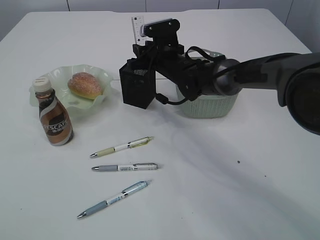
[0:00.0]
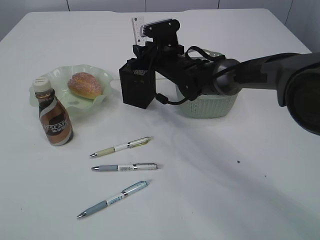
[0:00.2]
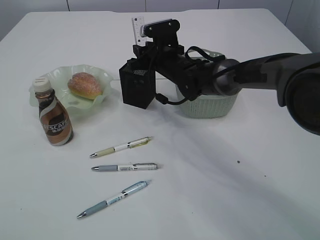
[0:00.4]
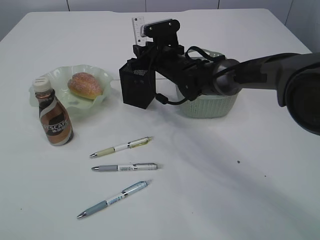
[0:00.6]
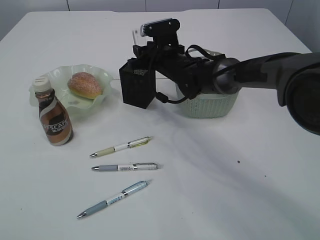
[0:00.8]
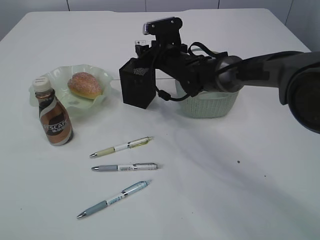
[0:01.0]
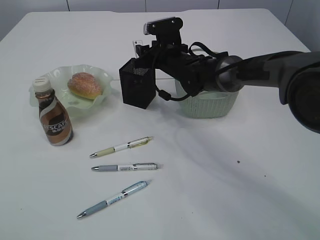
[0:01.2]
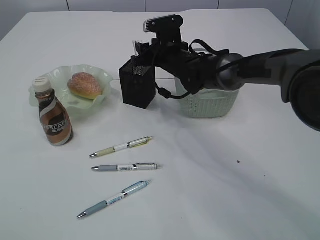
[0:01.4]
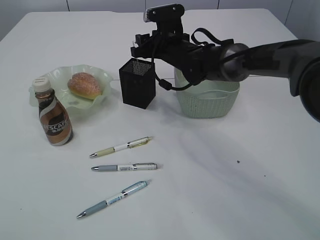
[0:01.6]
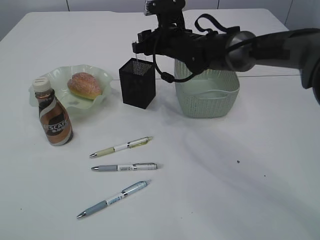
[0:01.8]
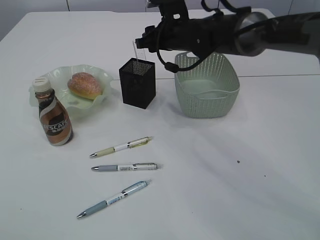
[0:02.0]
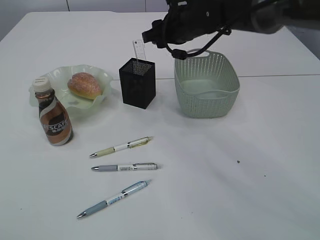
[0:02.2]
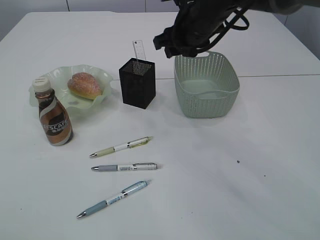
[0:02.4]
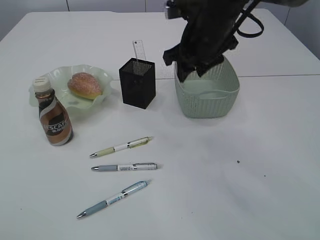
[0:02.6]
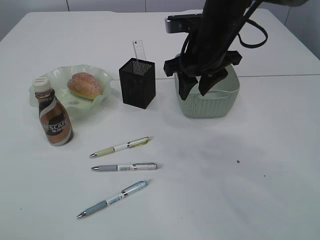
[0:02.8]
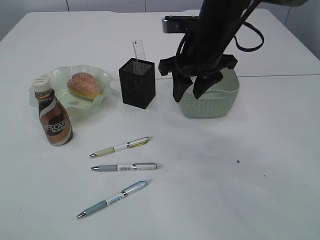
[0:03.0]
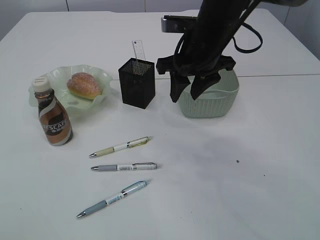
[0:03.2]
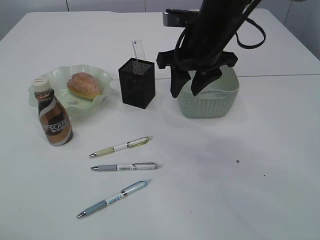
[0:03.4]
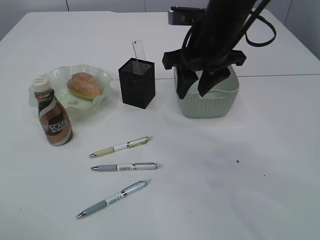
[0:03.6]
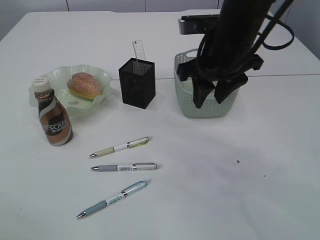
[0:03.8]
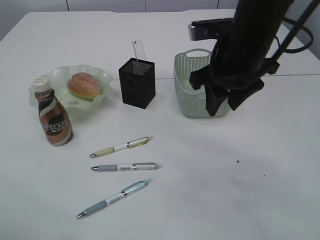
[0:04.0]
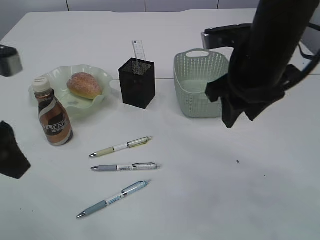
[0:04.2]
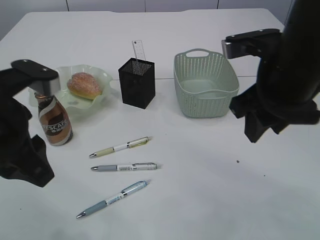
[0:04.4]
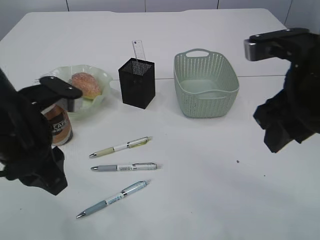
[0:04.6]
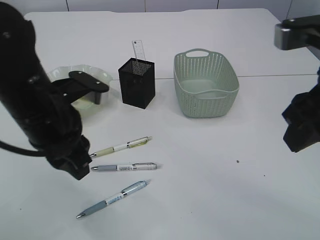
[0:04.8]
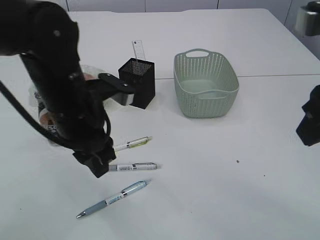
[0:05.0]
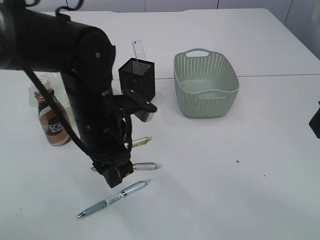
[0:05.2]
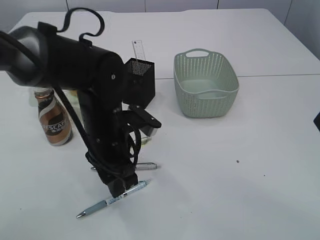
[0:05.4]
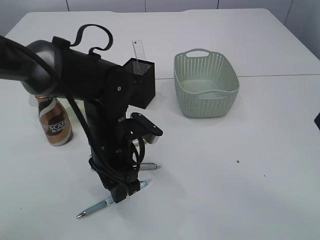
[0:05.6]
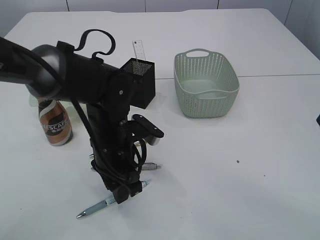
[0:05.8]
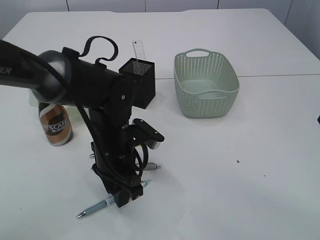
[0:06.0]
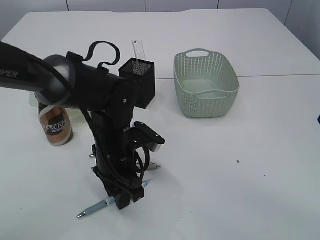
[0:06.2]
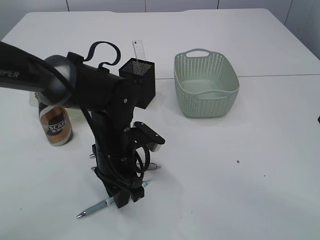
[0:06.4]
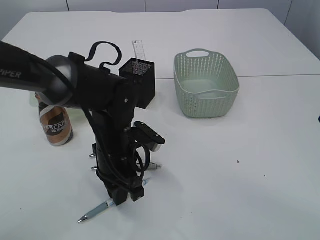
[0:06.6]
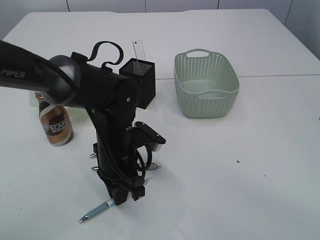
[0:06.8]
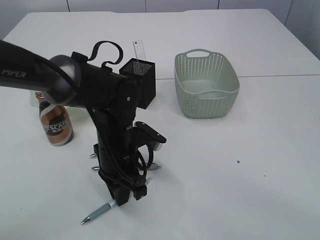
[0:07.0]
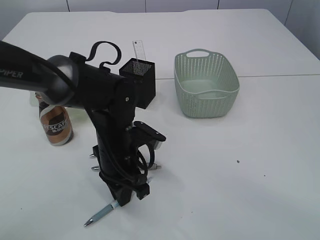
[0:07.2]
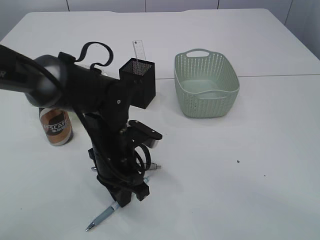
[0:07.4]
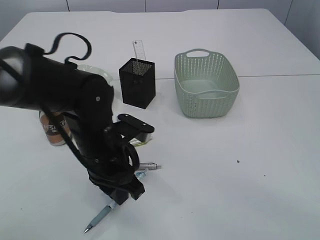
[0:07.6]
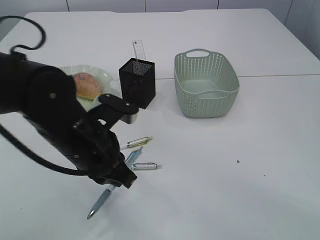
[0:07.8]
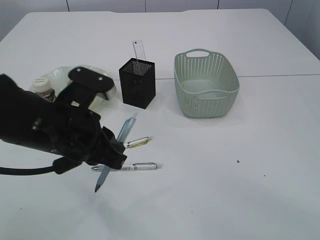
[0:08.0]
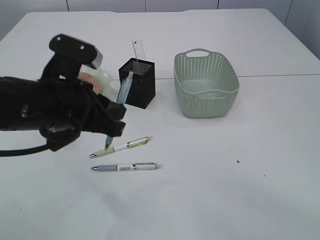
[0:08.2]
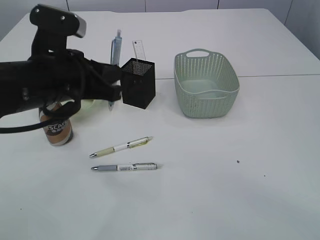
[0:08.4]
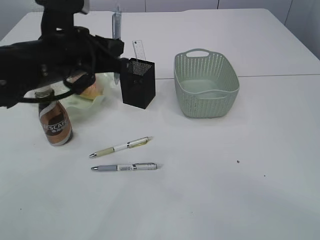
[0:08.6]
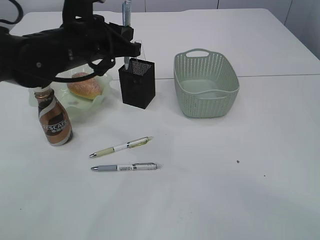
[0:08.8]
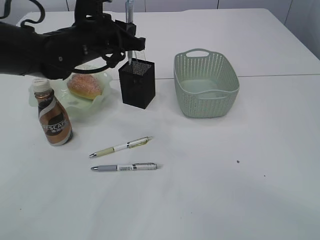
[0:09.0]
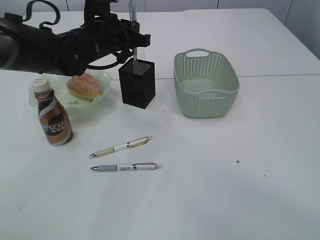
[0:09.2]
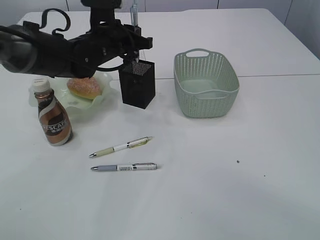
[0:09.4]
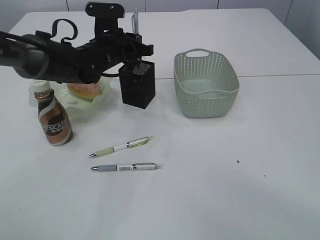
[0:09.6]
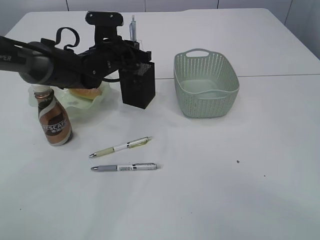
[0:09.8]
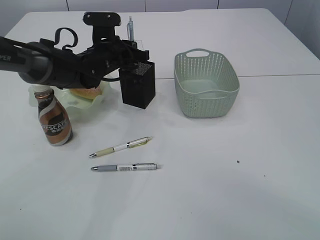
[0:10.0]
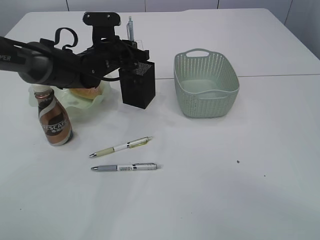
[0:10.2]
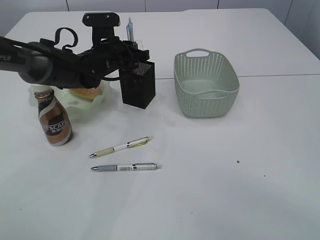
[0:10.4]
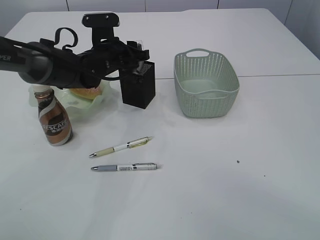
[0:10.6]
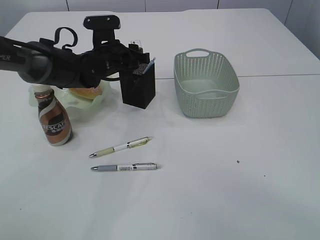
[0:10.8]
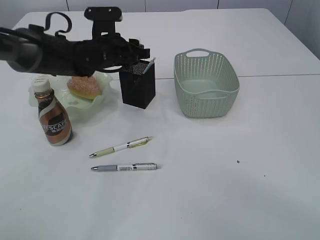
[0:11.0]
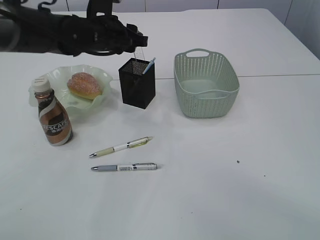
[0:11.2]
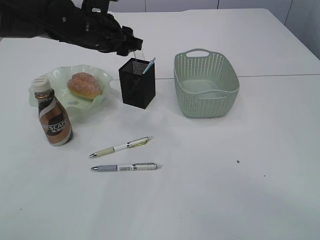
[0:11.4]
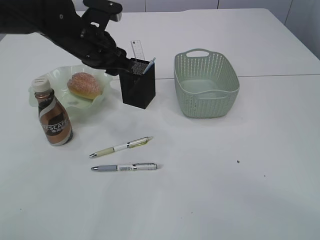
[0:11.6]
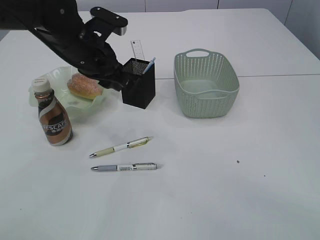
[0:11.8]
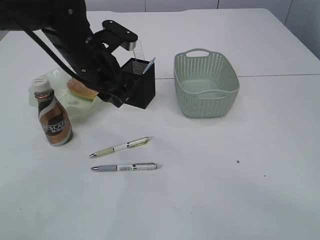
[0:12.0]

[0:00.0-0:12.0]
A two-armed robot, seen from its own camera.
Step, 0:00.0 to 0:02.0: Place the ruler into the pen holder.
Step, 0:02.2 to 0:07.8: Pick up the pen with left arm.
Step, 0:08.0 to 0:11.2: Place the pen into the pen holder.
0:00.0 to 0:01.6: There are only small adjustments of the grippers.
0:01.6 to 0:03.0: The right gripper is displaced backward and upward by about 15 cm.
0:03.0 to 0:04.4: The left gripper travels to the right, downward and forward by roughly 15 cm, while the right gripper goes some 15 cm backward and to the right.
0:04.4 to 0:06.0: The left gripper goes approximately 20 cm downward, to the right and forward, while the right gripper goes some 15 cm backward, upward and to the right.
0:06.0 to 0:07.6: The left gripper closes.
0:07.6 to 0:09.0: The left gripper travels forward and upward by roughly 15 cm.
0:09.0 to 0:10.4: The left gripper goes roughly 10 cm forward and downward.
0:10.4 to 0:12.0: The left gripper shifts roughly 10 cm backward and upward.

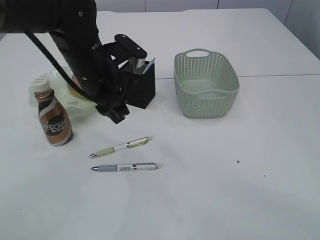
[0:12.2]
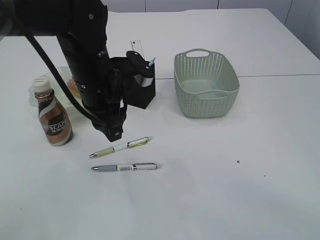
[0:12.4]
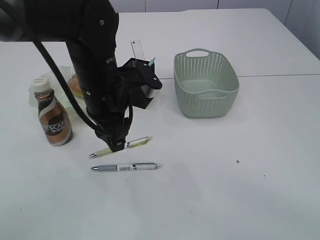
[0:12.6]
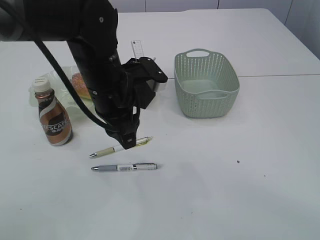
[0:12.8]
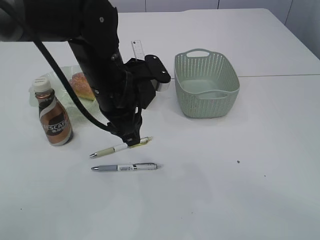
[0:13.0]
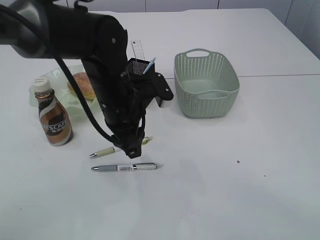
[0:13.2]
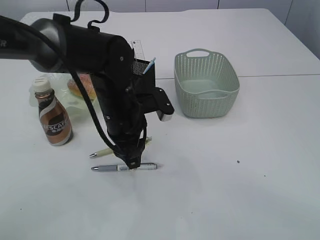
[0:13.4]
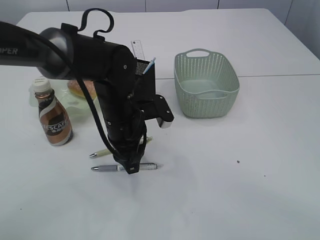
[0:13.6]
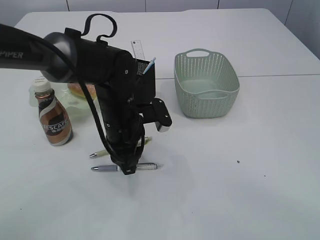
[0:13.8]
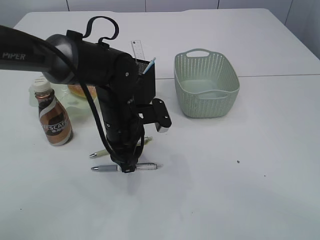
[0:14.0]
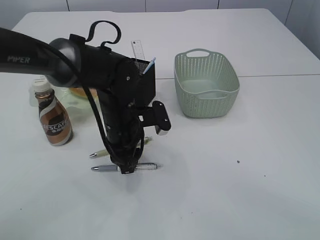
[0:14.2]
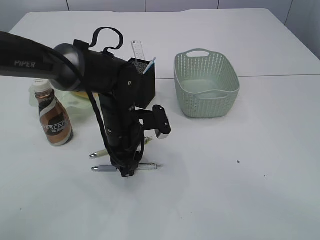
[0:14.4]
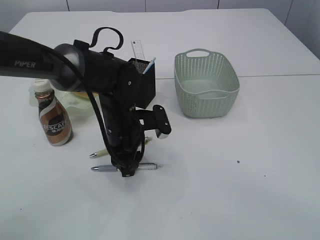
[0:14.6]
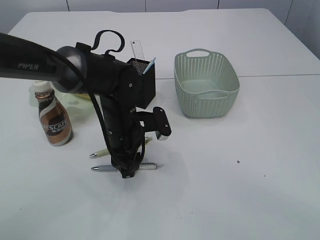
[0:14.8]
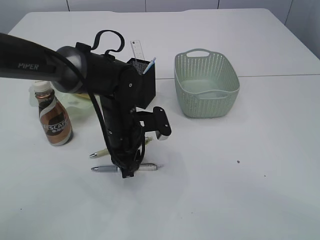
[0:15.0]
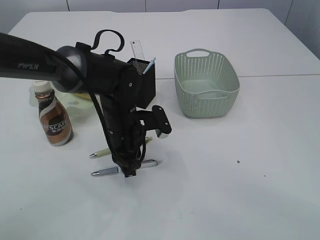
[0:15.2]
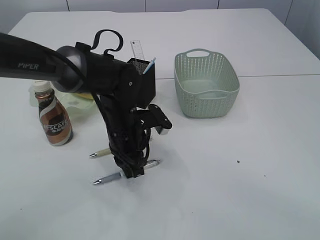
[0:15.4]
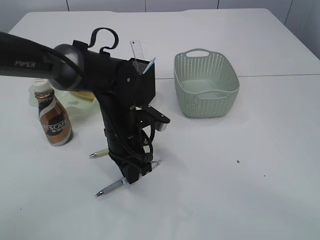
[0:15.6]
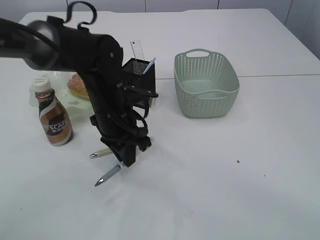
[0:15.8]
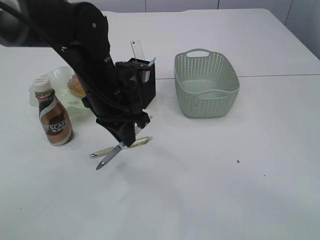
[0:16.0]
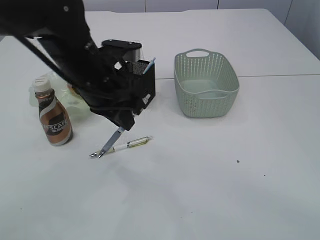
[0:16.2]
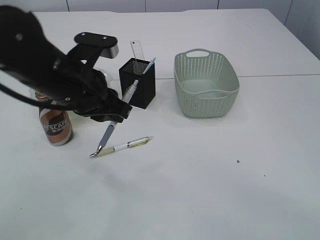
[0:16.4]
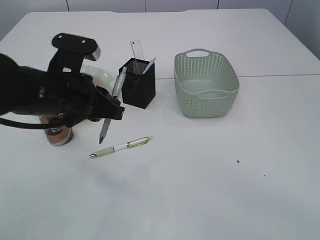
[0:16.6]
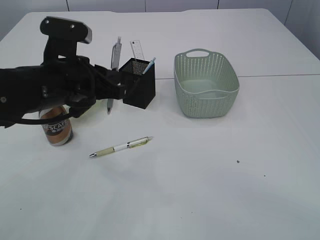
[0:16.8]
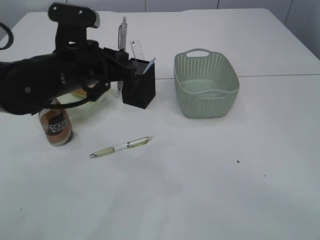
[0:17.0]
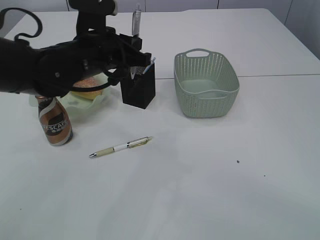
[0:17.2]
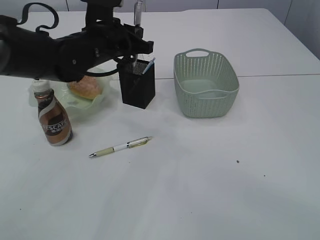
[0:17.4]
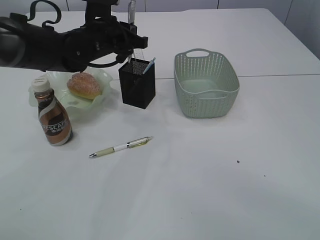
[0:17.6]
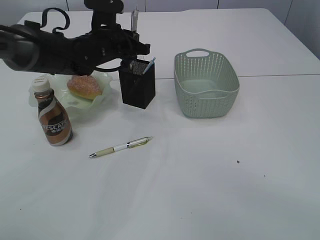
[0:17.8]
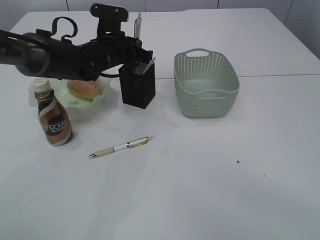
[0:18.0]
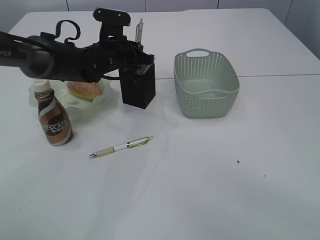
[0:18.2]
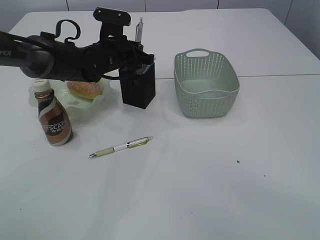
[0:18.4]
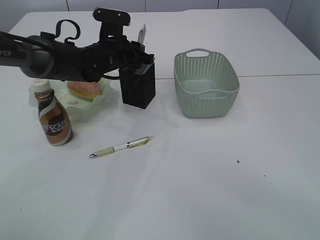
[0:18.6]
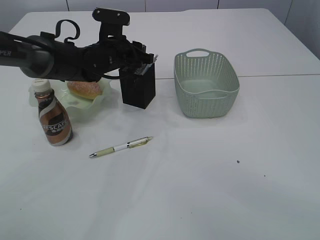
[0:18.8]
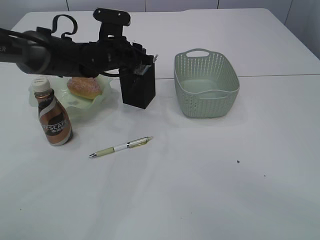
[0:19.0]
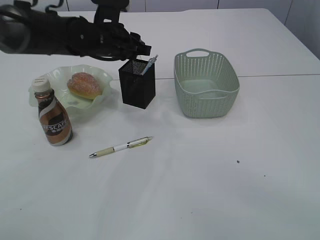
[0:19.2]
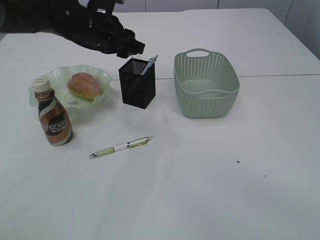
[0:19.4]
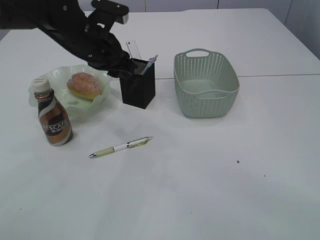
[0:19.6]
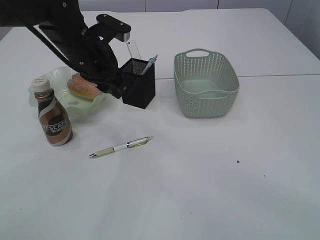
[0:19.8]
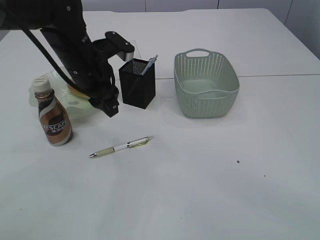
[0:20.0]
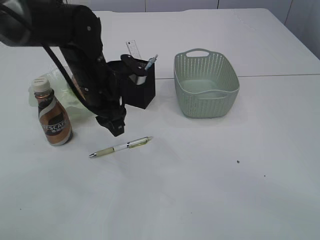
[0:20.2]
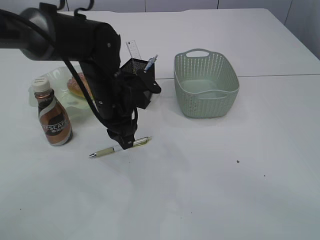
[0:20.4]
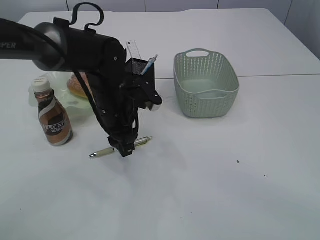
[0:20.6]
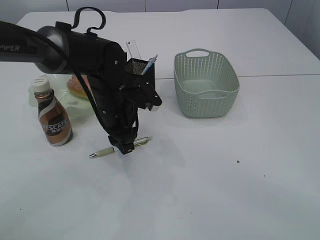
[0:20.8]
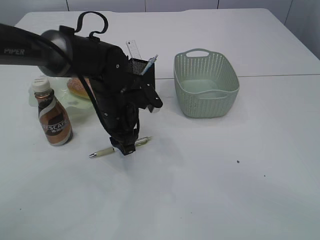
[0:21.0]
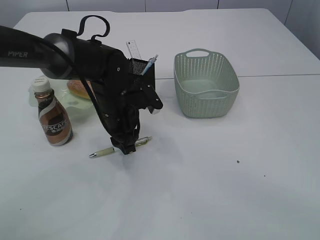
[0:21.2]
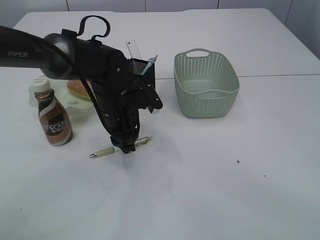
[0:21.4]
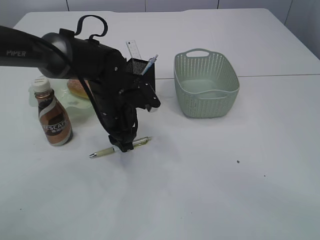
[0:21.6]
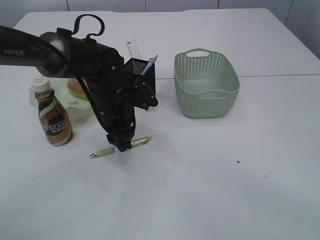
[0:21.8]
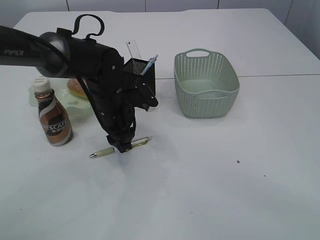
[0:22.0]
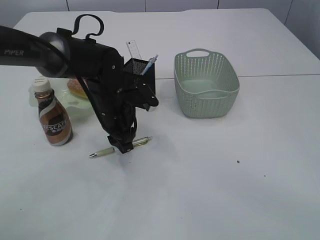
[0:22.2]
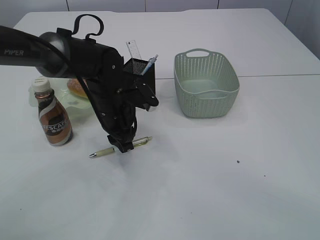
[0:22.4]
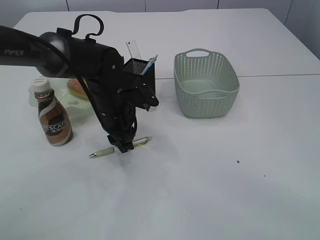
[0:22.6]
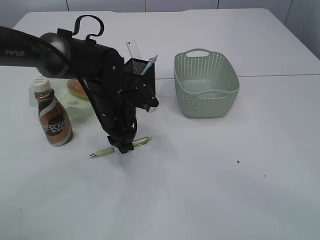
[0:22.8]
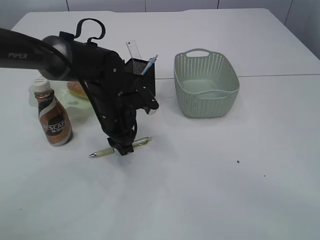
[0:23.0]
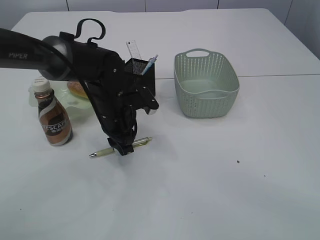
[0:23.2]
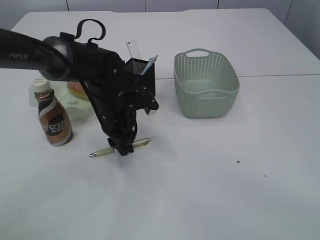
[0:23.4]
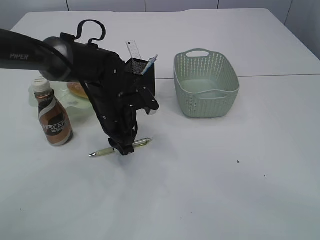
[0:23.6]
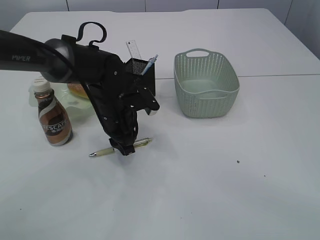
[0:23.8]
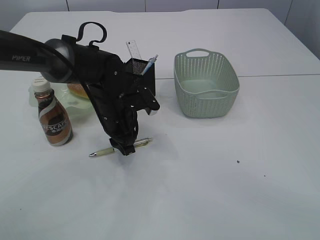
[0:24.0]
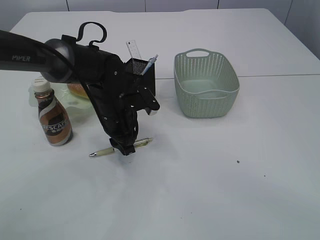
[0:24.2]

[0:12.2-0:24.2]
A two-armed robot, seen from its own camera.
Step, 0:12.2 to 0:16.0: Pick up the pen with left arm.
Step, 0:16.2 to 0:19.0: Place the pen into the pen holder.
0:12.2 to 0:13.8: The left gripper is displaced downward by about 10 cm.
0:13.8 to 0:15.2: The left gripper closes up.
0:15.2 to 0:16.6: The left gripper goes some 15 cm upward, to the left and backward.
0:16.6 to 0:18.2: The left gripper goes approximately 20 cm forward.
0:18.2 to 0:19.8: The left gripper is displaced backward and upward by roughly 10 cm, and opens up.
0:19.8 to 0:21.2: The left gripper goes approximately 10 cm downward.
0:21.2 to 0:22.6: Neither gripper changes place.
0:22.6 to 0:24.2: The two grippers keep their place.
